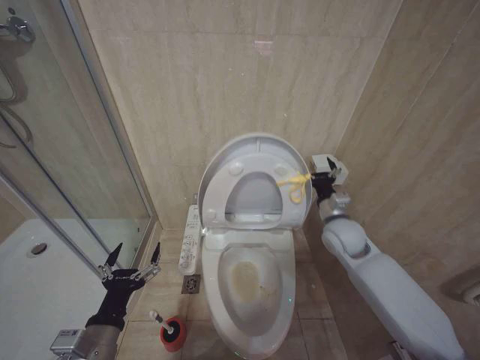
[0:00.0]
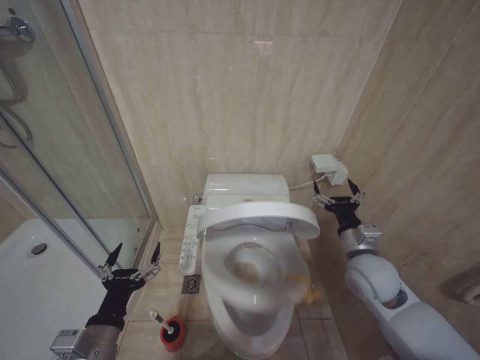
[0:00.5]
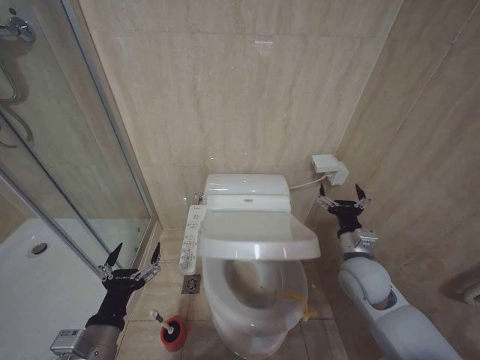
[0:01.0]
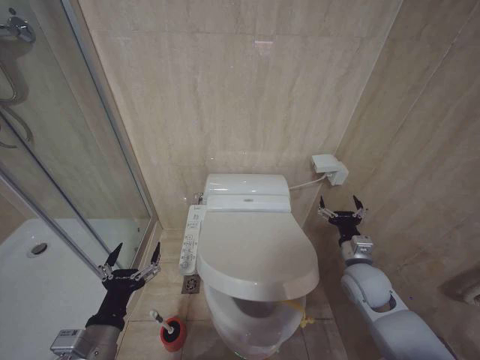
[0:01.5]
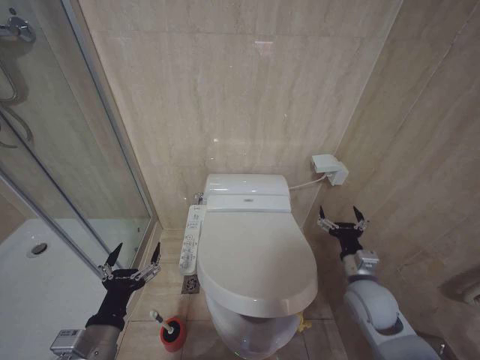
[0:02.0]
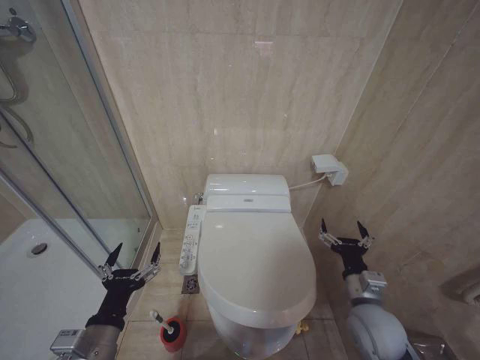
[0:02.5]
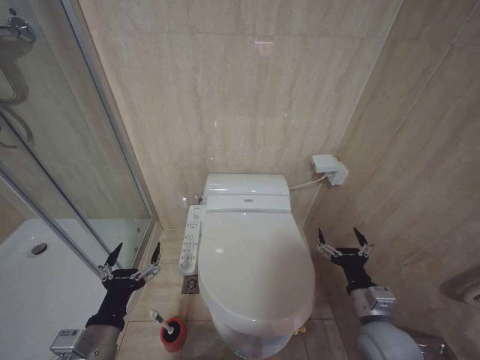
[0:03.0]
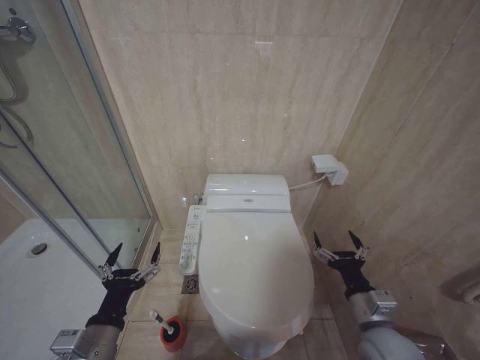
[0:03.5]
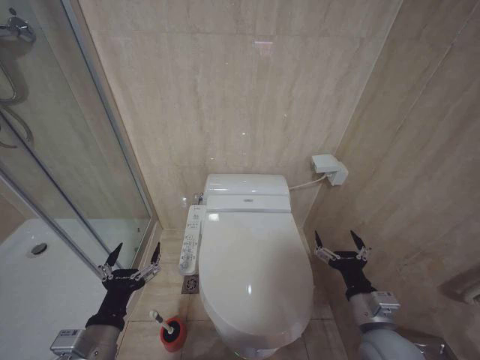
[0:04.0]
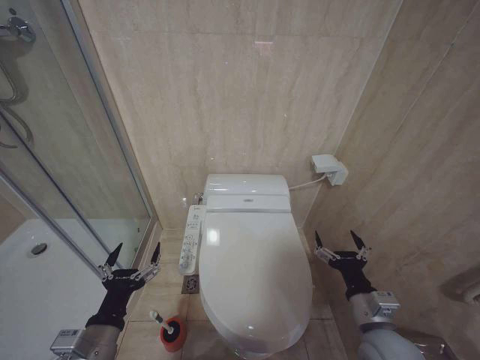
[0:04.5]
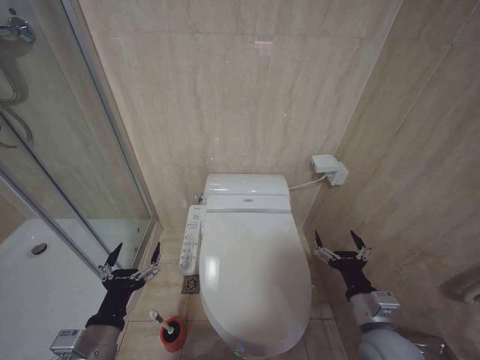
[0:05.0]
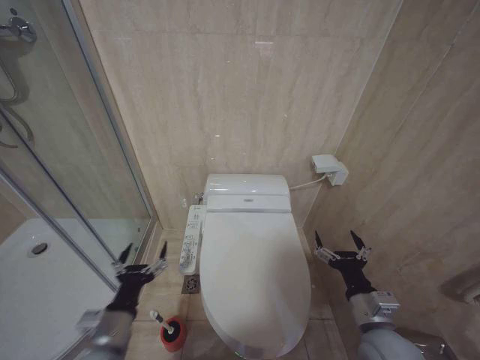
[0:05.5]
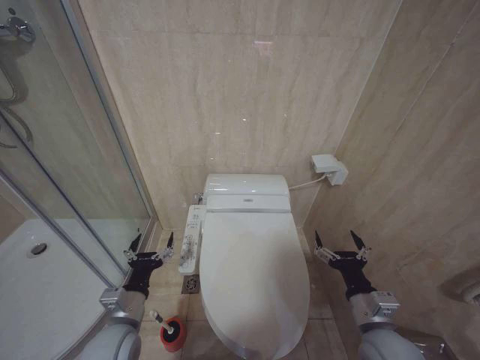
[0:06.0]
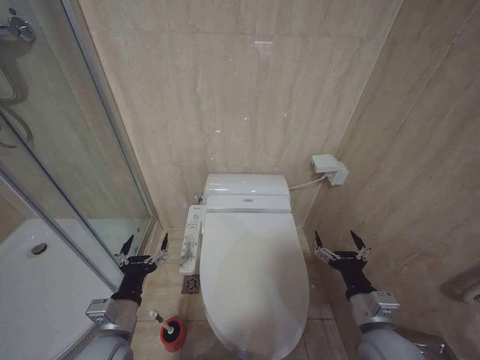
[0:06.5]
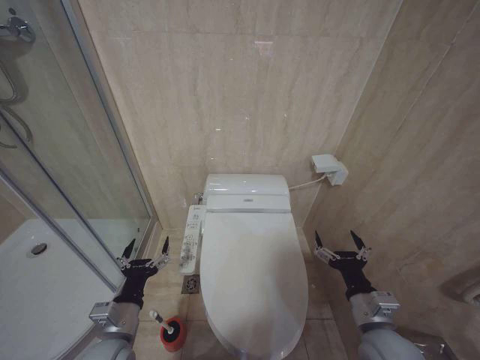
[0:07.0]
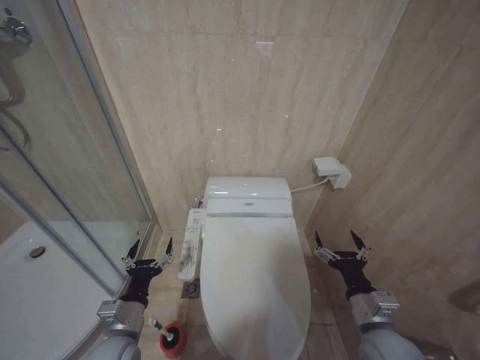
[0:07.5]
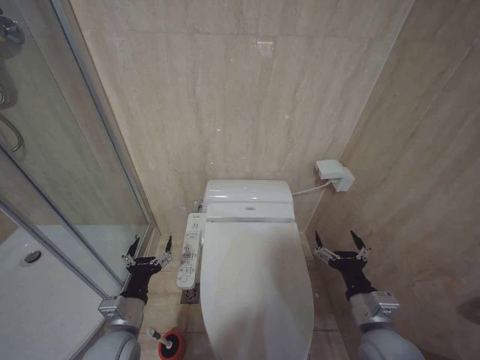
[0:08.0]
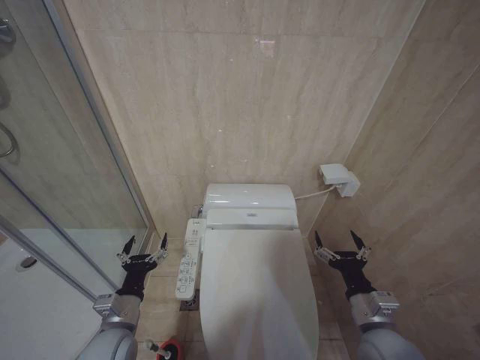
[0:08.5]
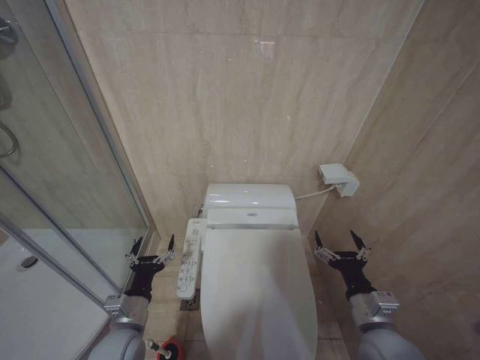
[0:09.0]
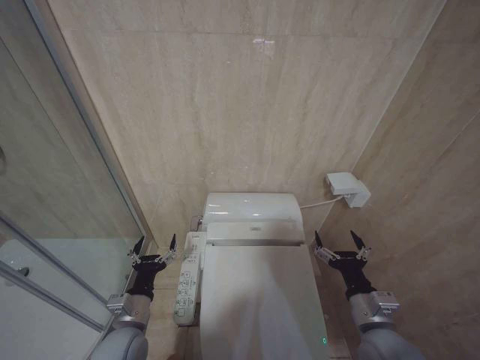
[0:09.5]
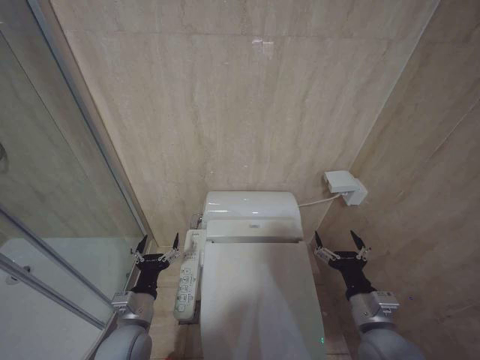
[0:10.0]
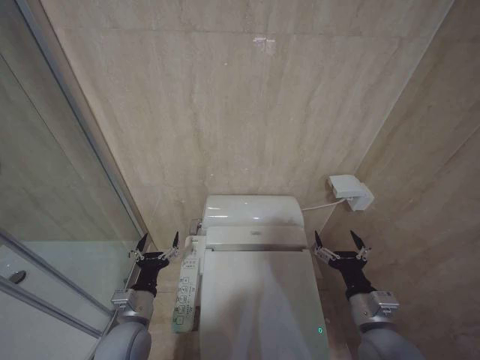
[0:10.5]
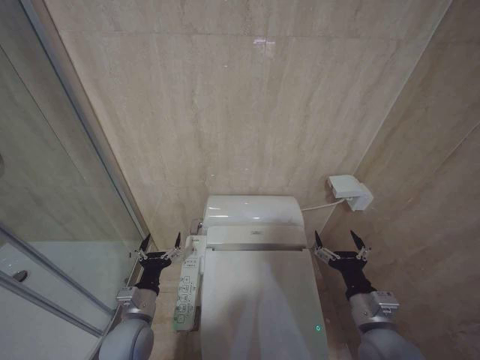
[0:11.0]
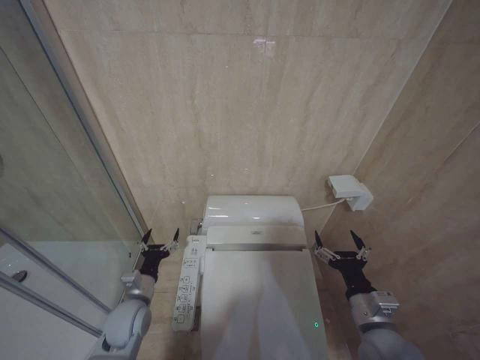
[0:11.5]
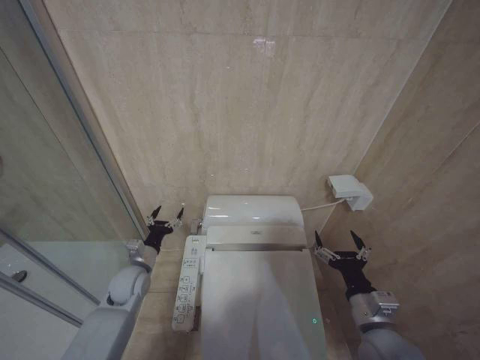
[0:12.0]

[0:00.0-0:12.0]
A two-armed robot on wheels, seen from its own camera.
Task of the whole recording: Open the toilet lid, clean the toilet bowl with a toilet brush, close the toilet lid, and flush.
0:00.0 to 0:02.0: The right gripper goes approximately 15 cm backward and downward.
0:02.0 to 0:04.0: The right gripper is displaced backward by some 10 cm.
0:04.0 to 0:06.0: The left gripper goes some 10 cm forward.
0:06.0 to 0:10.0: The grippers make only small movements.
0:10.0 to 0:12.0: The left gripper shifts approximately 15 cm forward.

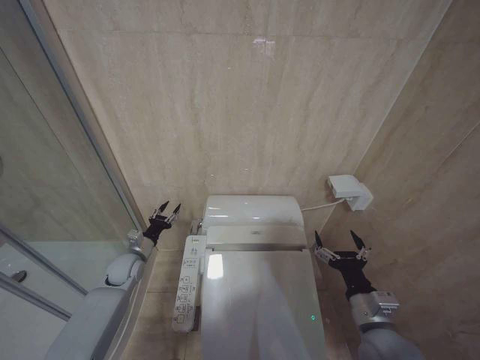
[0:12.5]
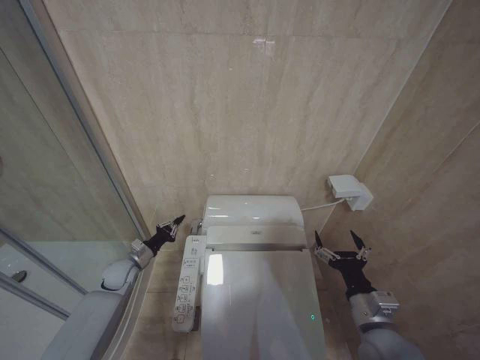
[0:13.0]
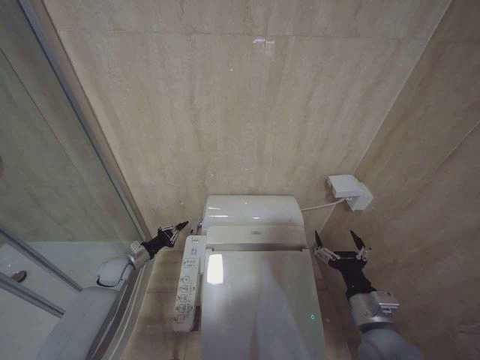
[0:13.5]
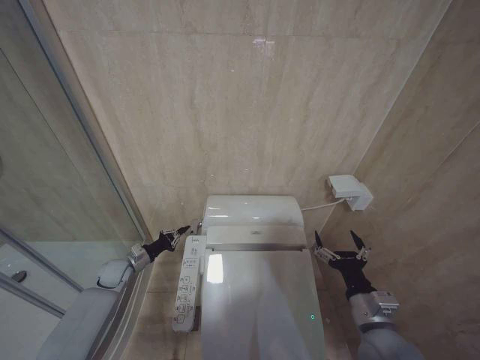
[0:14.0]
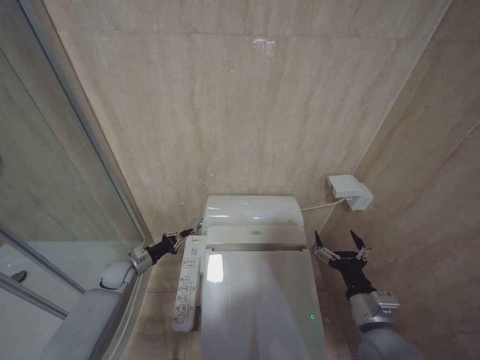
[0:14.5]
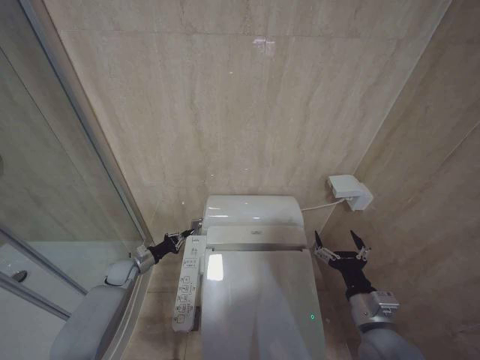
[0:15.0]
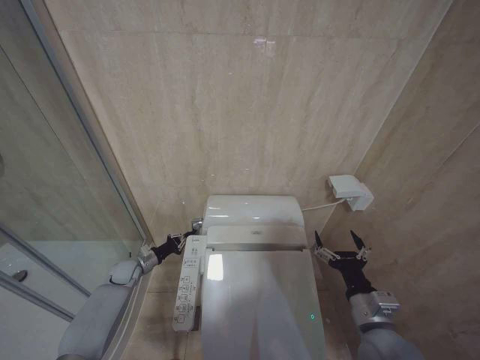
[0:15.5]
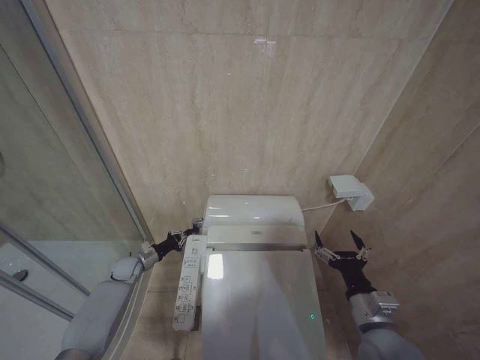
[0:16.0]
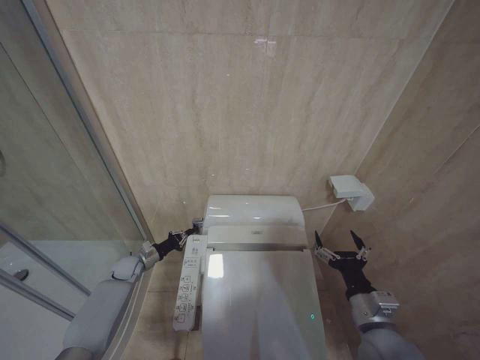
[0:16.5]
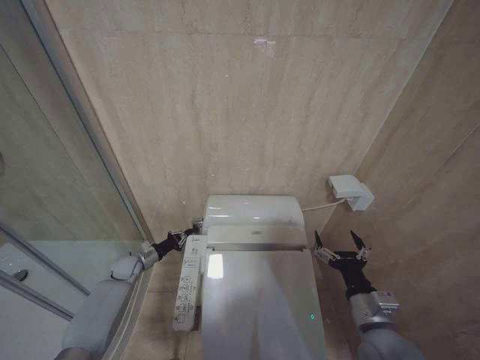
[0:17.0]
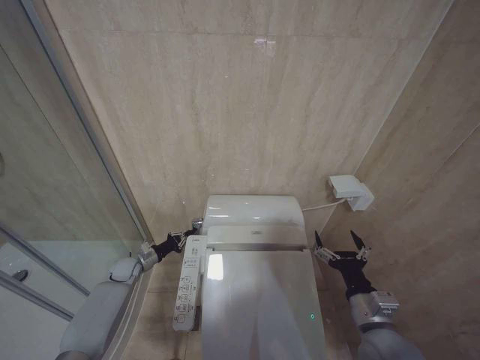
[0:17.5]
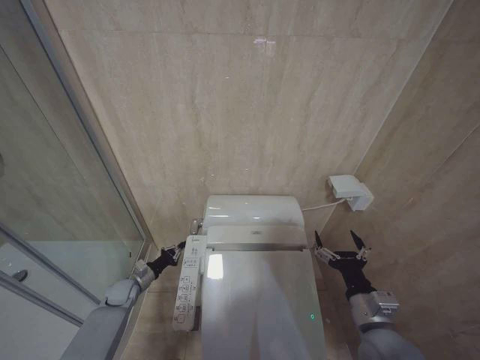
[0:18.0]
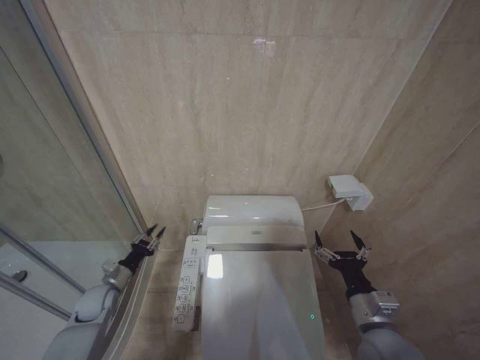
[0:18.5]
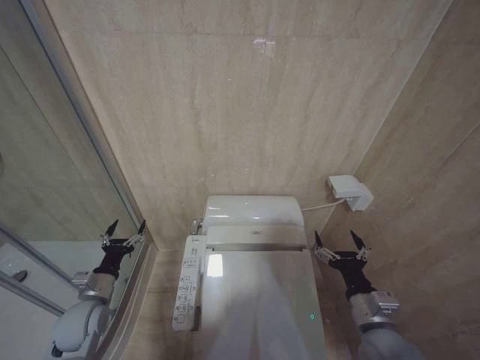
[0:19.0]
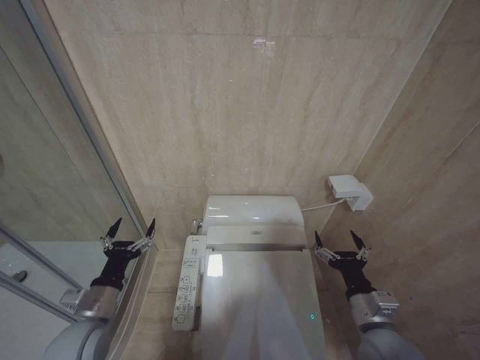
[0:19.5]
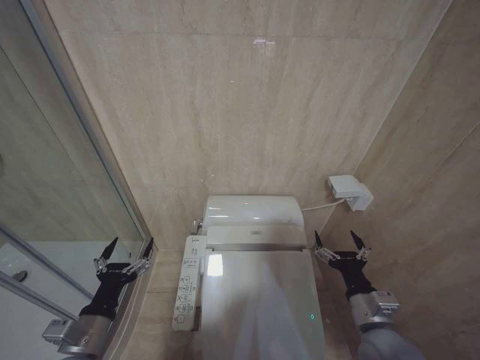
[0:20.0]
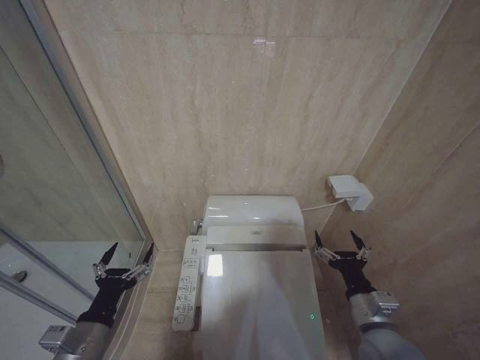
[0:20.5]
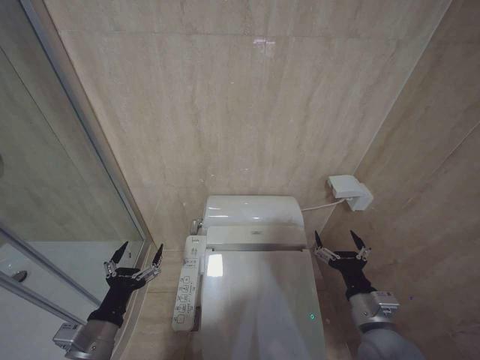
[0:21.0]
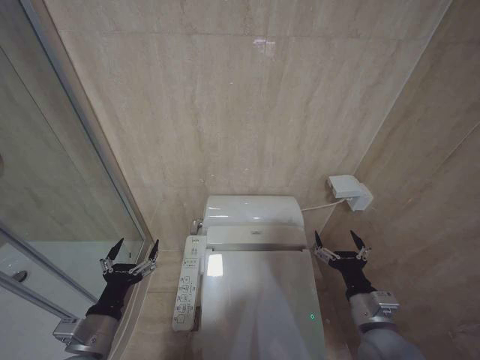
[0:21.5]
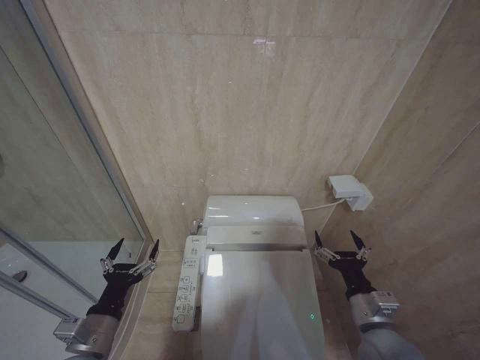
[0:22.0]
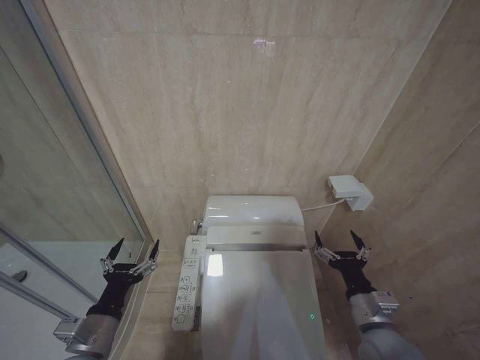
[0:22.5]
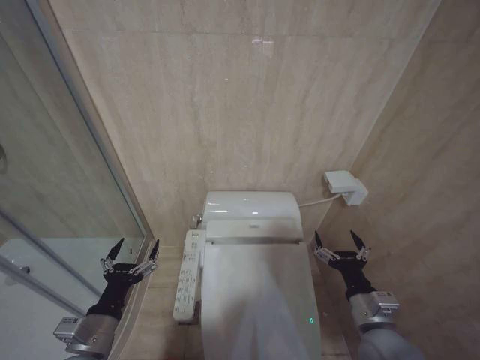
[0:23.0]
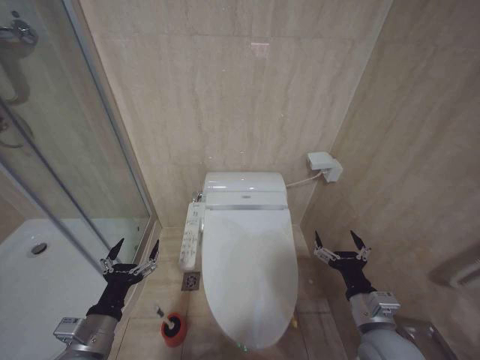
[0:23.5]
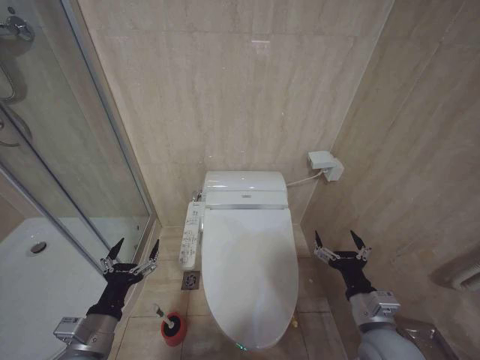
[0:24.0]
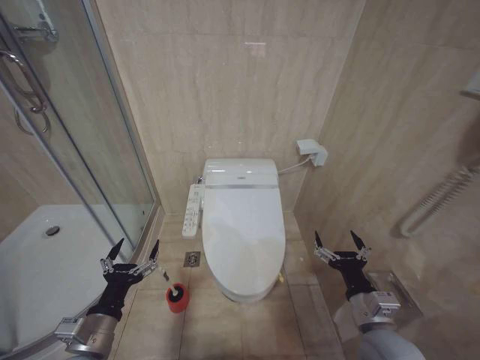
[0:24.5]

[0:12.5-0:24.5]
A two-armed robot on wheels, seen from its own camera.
Task of the whole recording: Open the toilet lid, clean the toilet bowl with a toilet brush, close the toilet lid, and flush.
0:12.5 to 0:14.5: The left gripper shifts by roughly 5 cm, and closes up.
0:14.5 to 0:16.5: The grippers stay close to where they were, moving slightly.
0:16.5 to 0:18.5: The left gripper goes approximately 10 cm backward.
0:18.5 to 0:20.5: The left gripper travels backward, upward and to the right by about 25 cm, and opens up.
0:20.5 to 0:22.5: The grippers make only small movements.

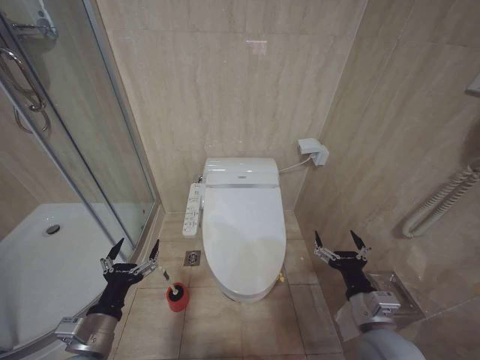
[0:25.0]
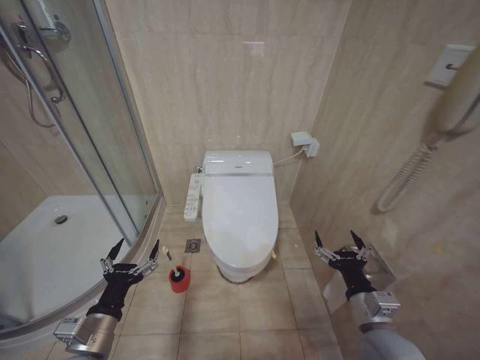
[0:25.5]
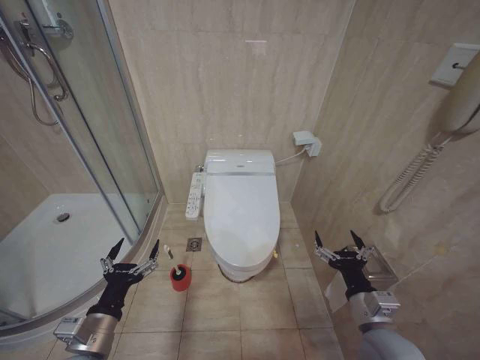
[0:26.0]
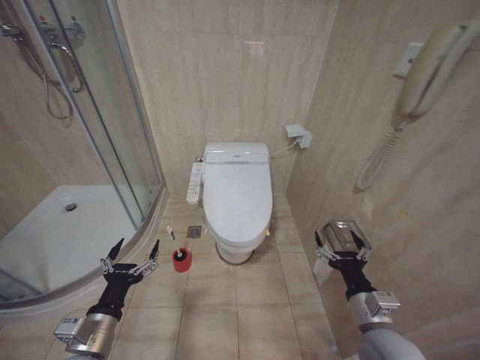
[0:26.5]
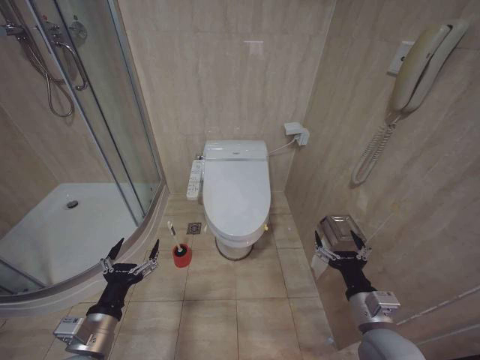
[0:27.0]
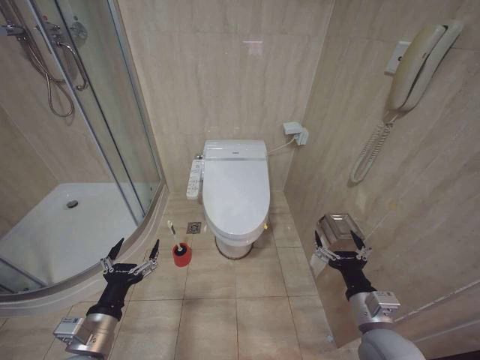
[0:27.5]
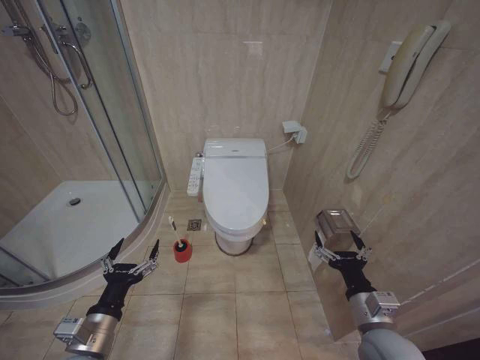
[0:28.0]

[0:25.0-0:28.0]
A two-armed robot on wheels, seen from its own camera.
Task of the whole recording: Open the toilet lid, clean the toilet bowl with a toilet brush, close the toilet lid, and flush.
0:26.5 to 0:28.0: Both grippers stay put.
